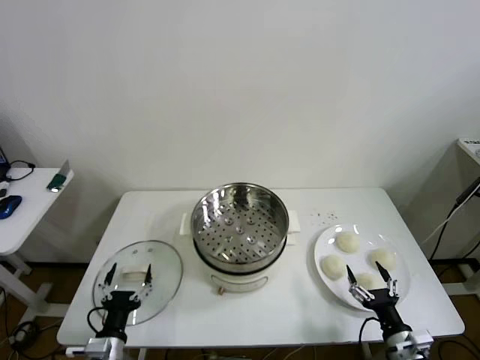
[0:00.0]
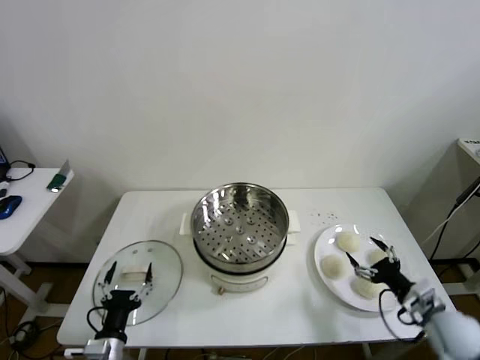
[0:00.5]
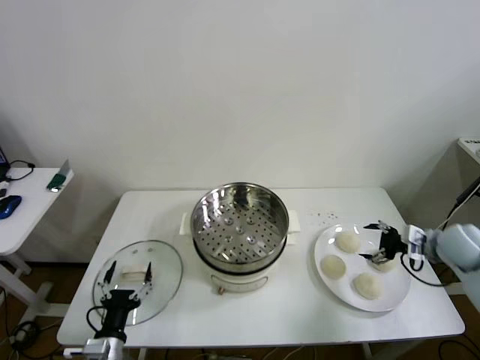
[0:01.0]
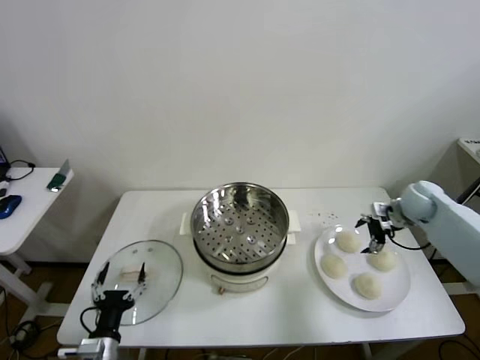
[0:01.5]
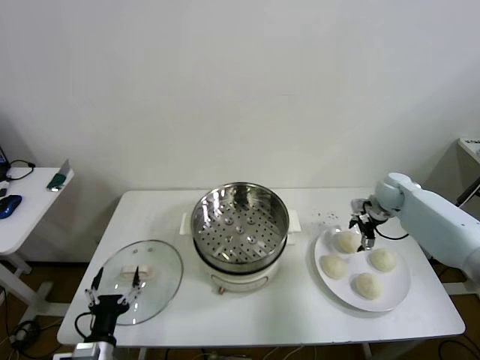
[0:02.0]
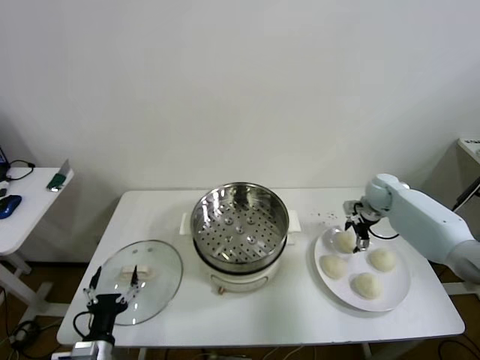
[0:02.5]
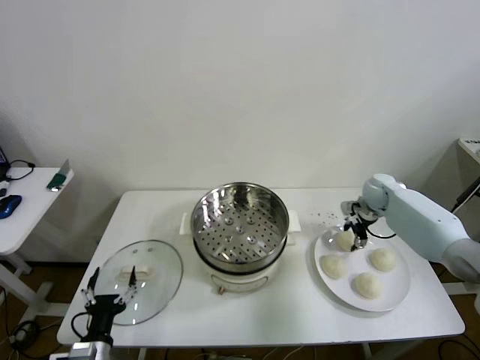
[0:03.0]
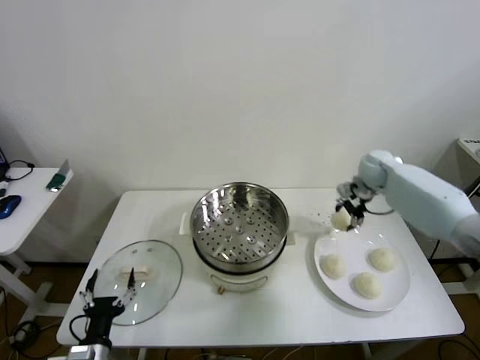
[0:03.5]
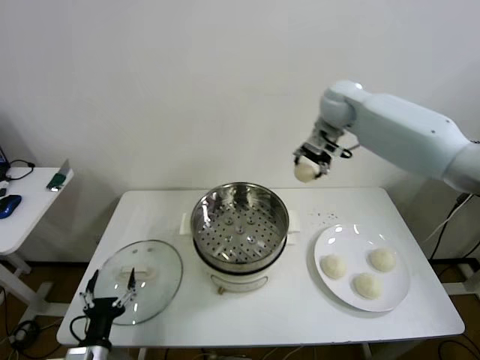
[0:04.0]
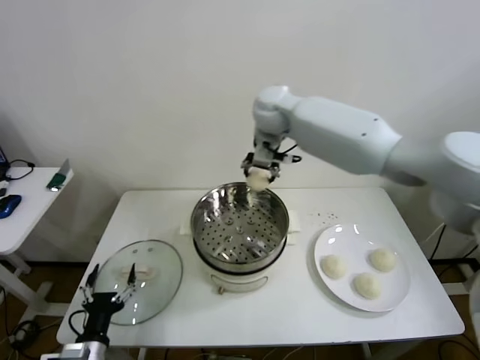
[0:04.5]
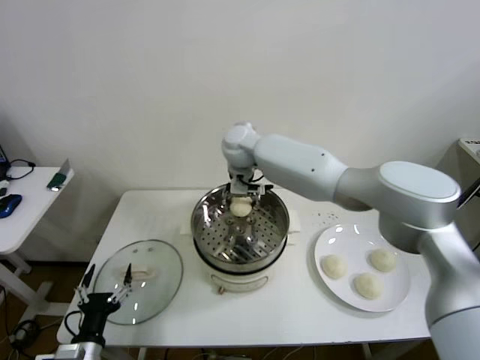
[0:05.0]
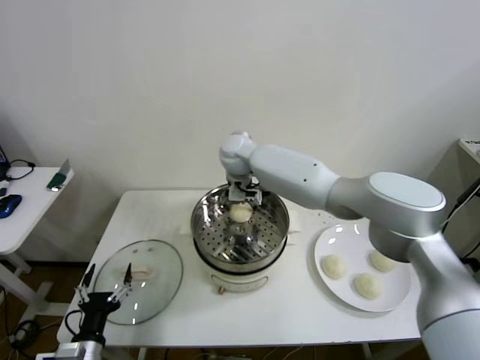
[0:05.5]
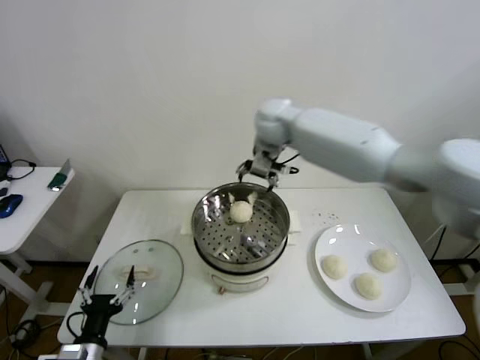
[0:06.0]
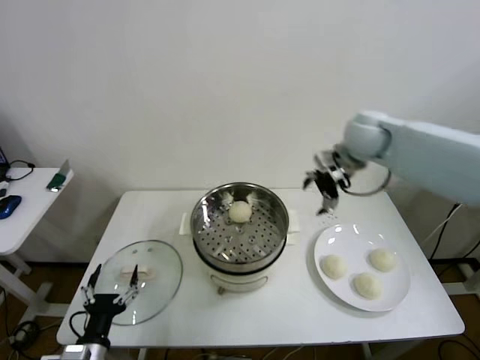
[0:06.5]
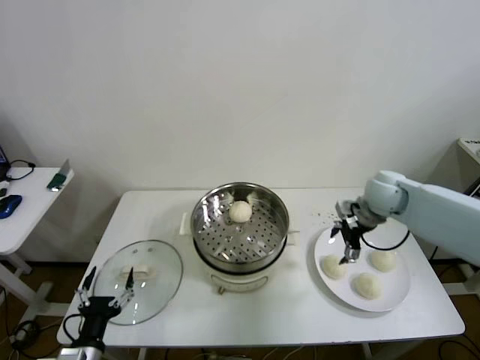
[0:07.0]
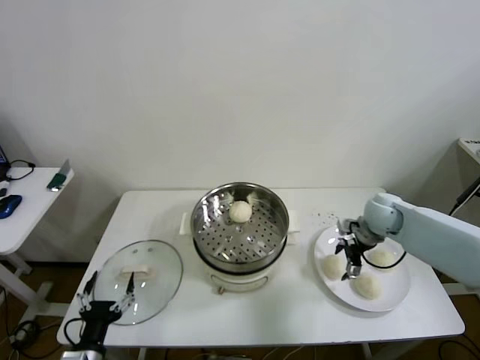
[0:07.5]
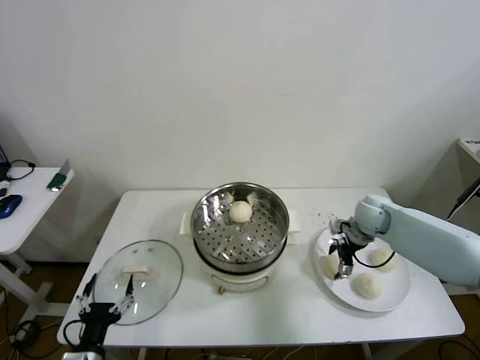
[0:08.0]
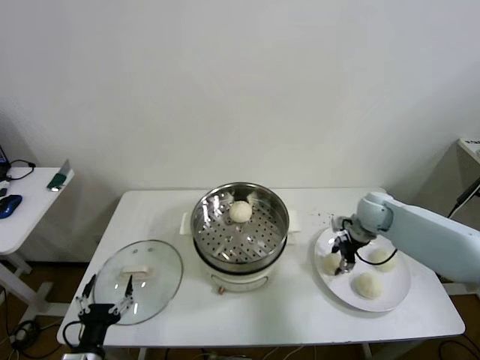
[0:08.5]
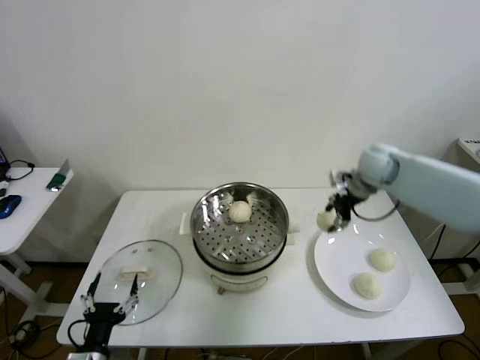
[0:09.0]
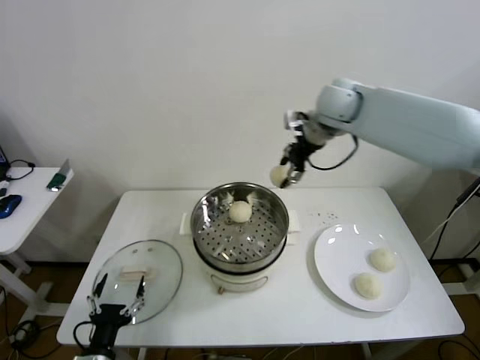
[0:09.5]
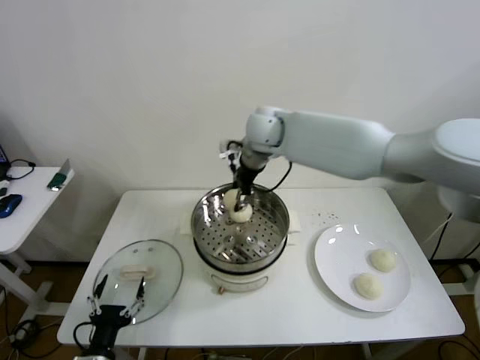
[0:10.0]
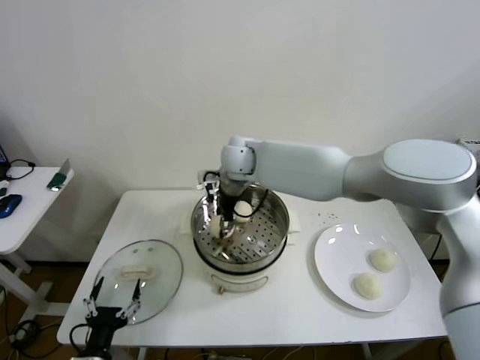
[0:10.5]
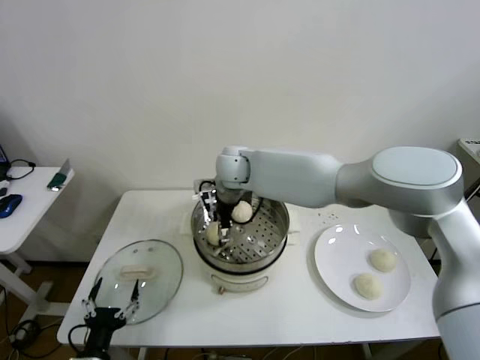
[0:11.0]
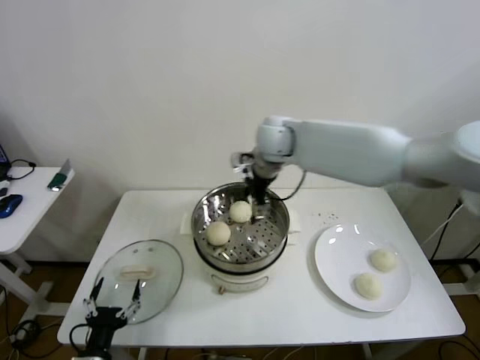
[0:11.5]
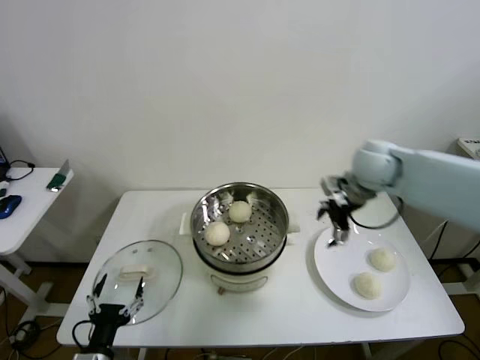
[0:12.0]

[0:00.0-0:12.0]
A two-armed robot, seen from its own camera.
Step, 0:00.0 to 0:02.5: Grasp the baozi in the plate with right gripper.
Step, 0:03.0 to 0:05.5: Place the baozi on the steamer with right gripper.
Step, 0:06.0 to 0:08.5: Grasp the baozi in the plate with right gripper.
Step, 0:09.0 to 0:11.0: Place the baozi on the steamer with right gripper.
0:02.0 to 0:04.0: The right gripper heads upward and to the left, covering roughly 35 cm, and closes.
0:04.0 to 0:06.0: The right gripper travels to the left and back again, about 20 cm each way, and opens its fingers.
0:06.0 to 0:08.0: The right gripper travels downward and to the right by some 35 cm.
0:08.0 to 0:10.0: The right gripper heads to the left and upward, covering some 35 cm, and closes up.
0:10.0 to 0:12.0: The right gripper heads to the right, covering about 25 cm, and opens.

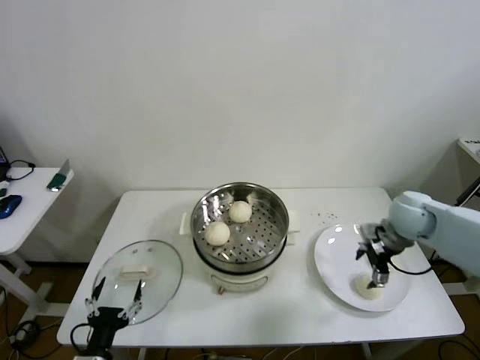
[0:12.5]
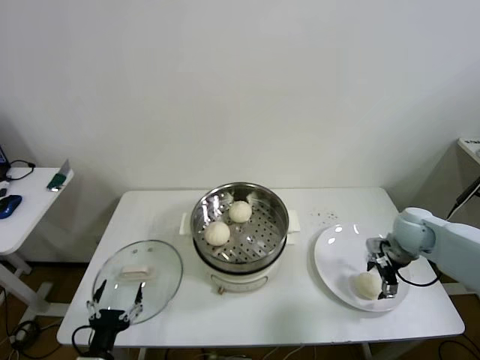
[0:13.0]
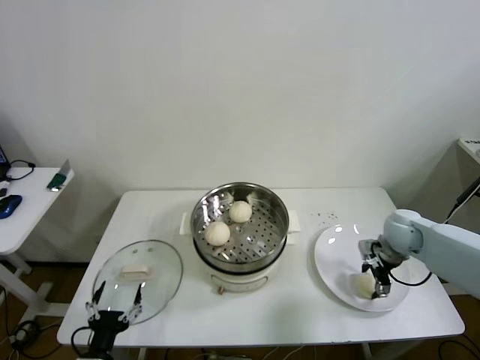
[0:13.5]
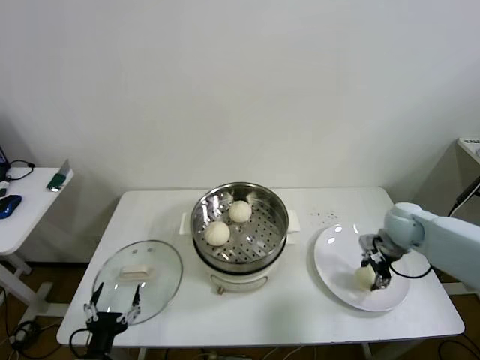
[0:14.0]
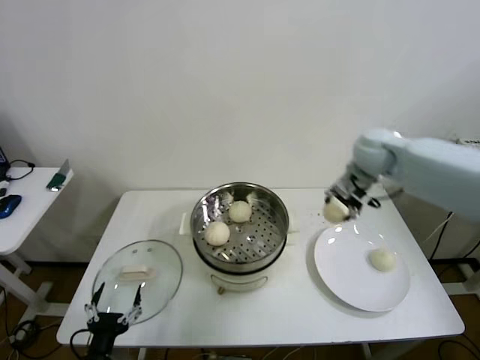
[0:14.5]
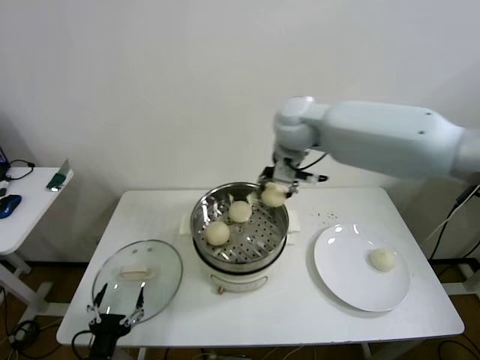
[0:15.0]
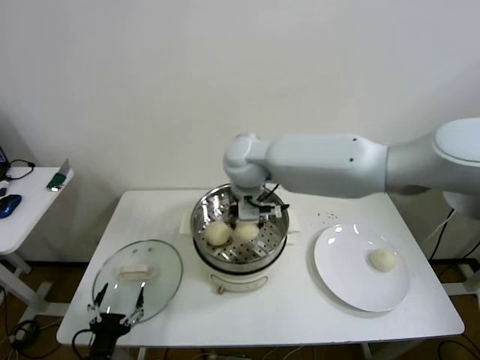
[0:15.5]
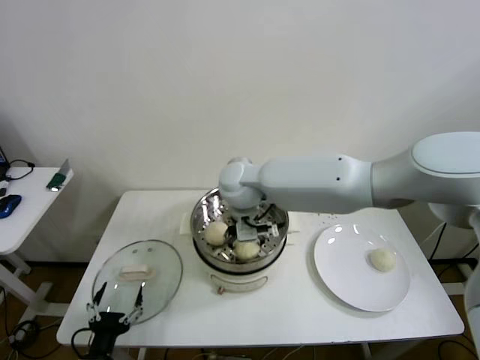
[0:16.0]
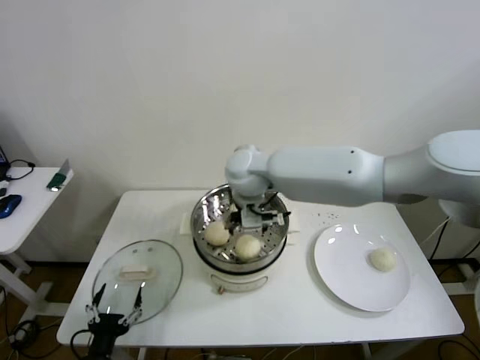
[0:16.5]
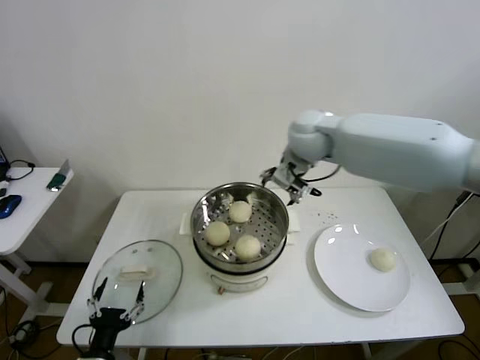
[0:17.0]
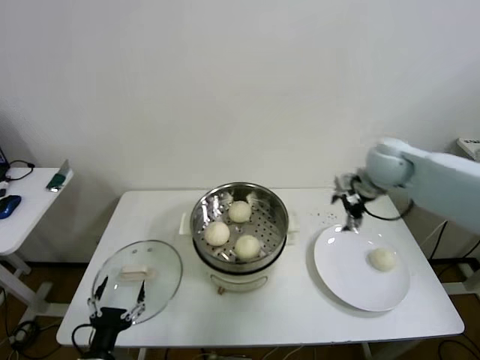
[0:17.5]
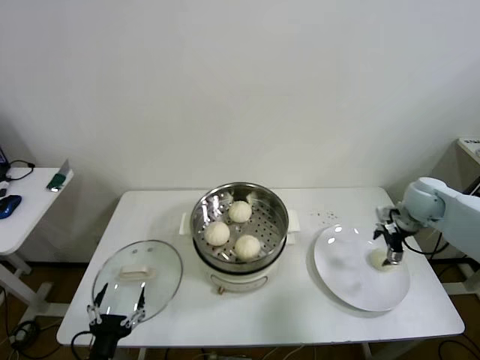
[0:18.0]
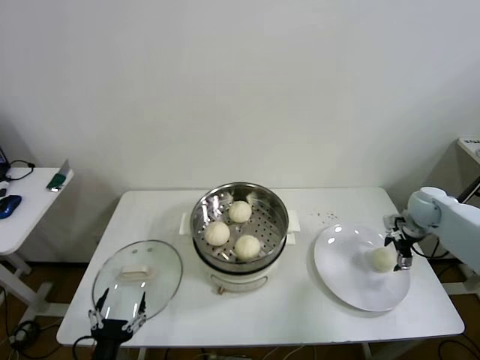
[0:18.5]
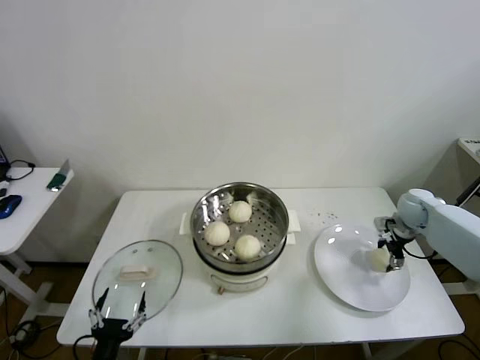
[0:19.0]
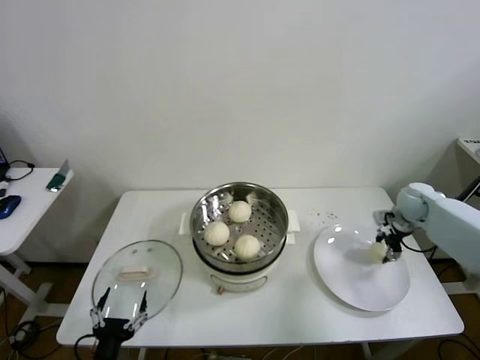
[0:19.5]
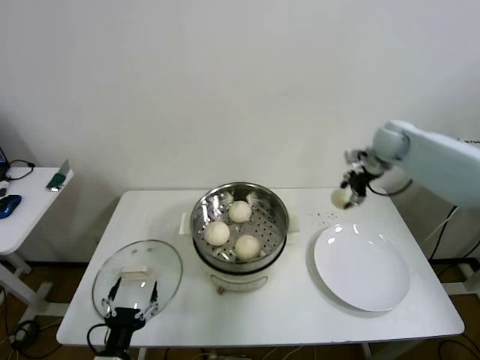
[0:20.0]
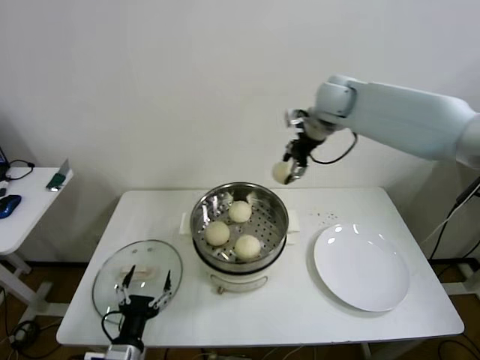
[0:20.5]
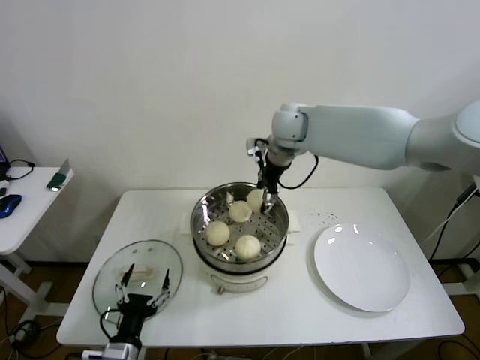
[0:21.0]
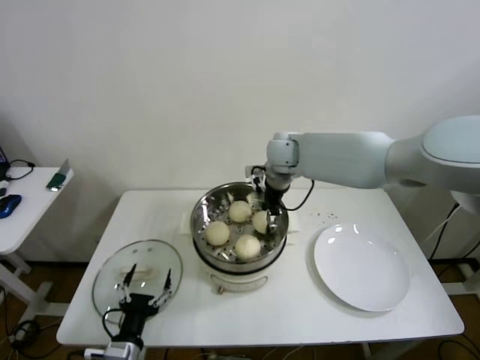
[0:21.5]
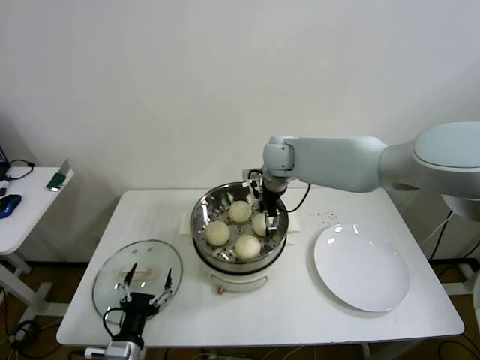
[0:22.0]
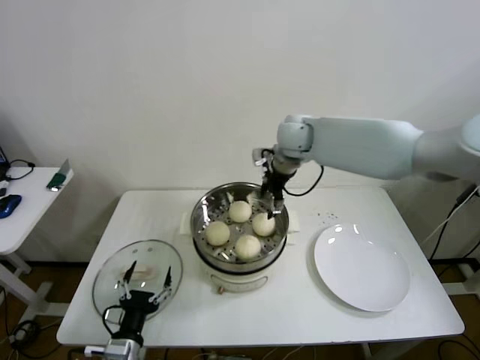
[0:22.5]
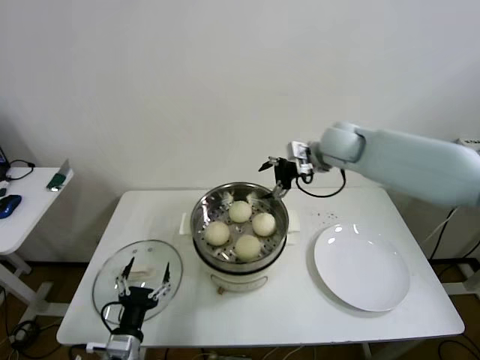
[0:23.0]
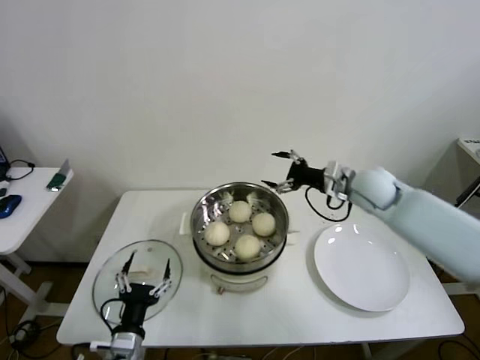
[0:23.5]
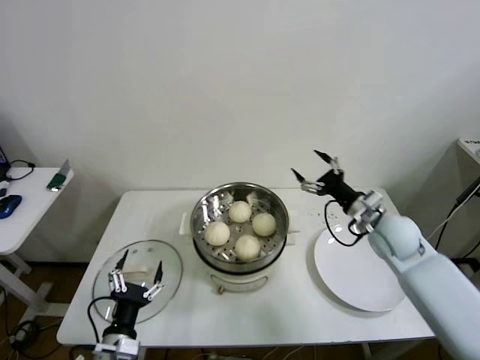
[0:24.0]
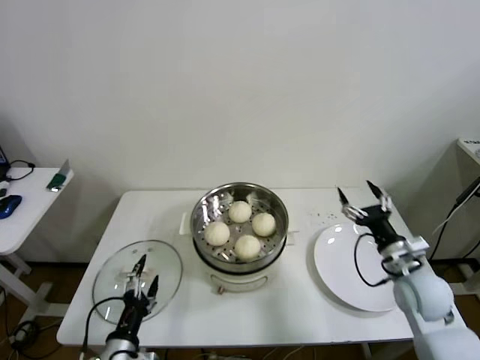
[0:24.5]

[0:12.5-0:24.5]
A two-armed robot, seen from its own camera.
Step, 0:14.0 to 0:16.0: Place the baozi on the steamer with right gripper.
Step, 0:16.5 to 0:19.0: Grasp the baozi in the plate with right gripper.
Step, 0:19.5 to 0:22.0: Place the baozi on the steamer with right gripper.
0:12.5 to 0:14.5: The right gripper heads upward, to the left and forward, covering about 20 cm, and closes up.
0:14.5 to 0:16.5: The right gripper travels to the left by some 25 cm, and opens up.
0:16.5 to 0:18.5: The right gripper goes about 50 cm to the right.
0:18.5 to 0:20.5: The left gripper moves about 5 cm; the right gripper moves to the left and upward, about 40 cm, and closes.
0:20.5 to 0:22.5: The right gripper heads downward and to the left, covering about 10 cm, and opens up.
0:22.5 to 0:24.5: The right gripper heads backward, to the right and downward, covering approximately 40 cm.

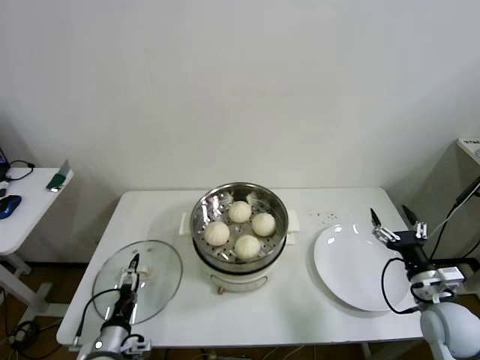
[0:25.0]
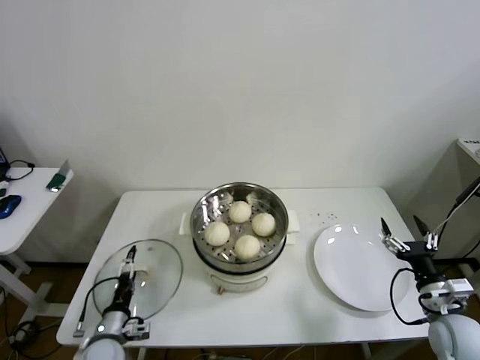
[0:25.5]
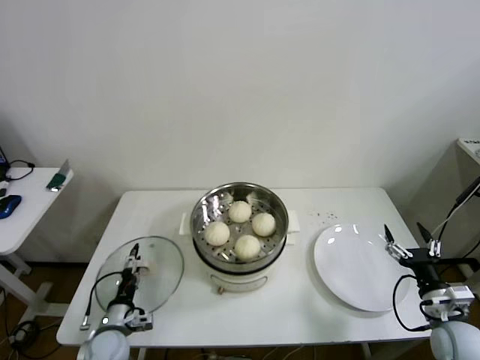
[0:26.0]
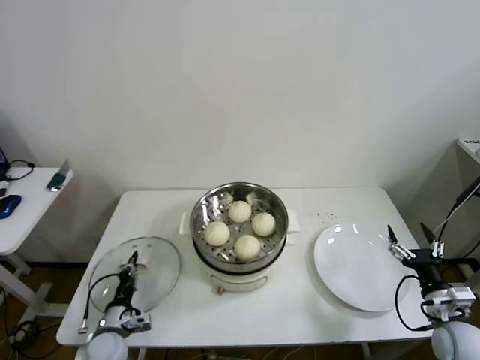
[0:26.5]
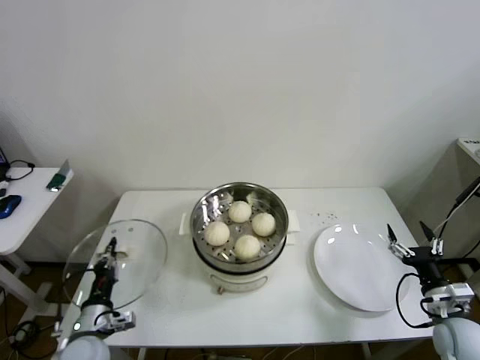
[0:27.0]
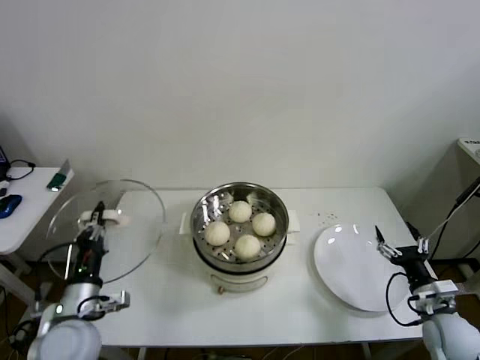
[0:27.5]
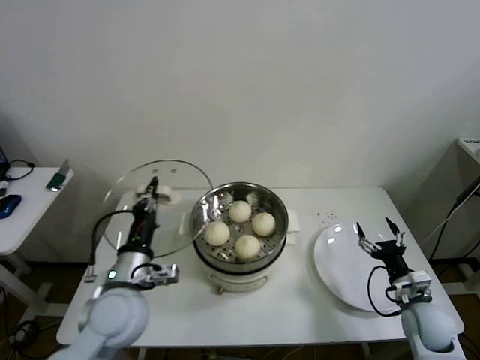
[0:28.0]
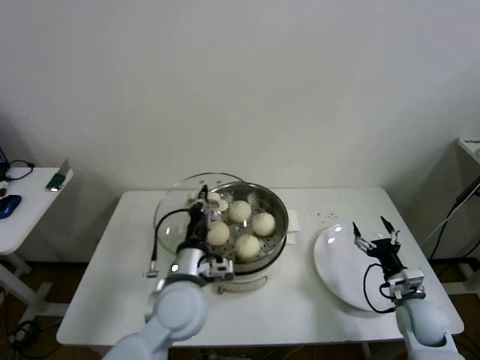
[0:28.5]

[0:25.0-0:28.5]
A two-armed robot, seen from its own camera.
0:25.0 to 0:27.0: The right gripper changes place by roughly 5 cm. The left gripper closes.
0:27.0 to 0:28.5: The right gripper travels forward by approximately 5 cm. The left gripper moves to the right and upward, approximately 25 cm.
